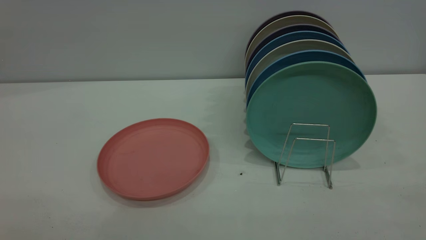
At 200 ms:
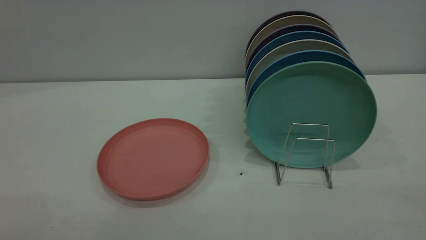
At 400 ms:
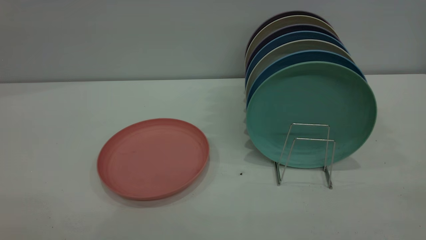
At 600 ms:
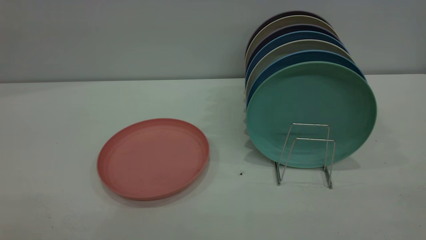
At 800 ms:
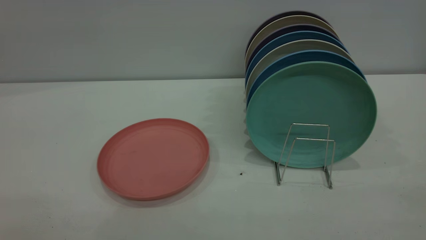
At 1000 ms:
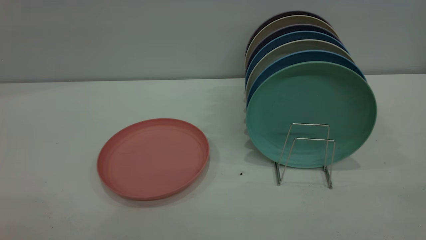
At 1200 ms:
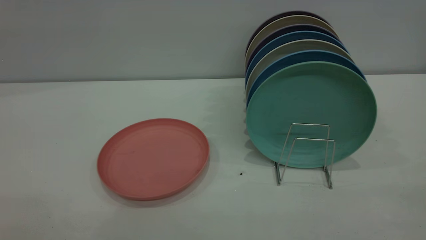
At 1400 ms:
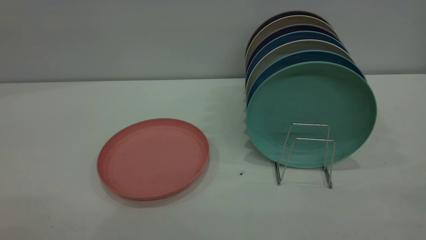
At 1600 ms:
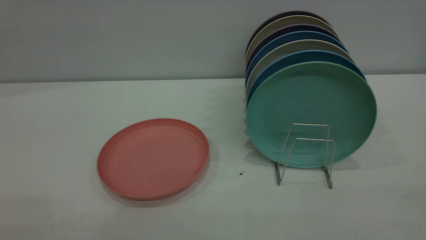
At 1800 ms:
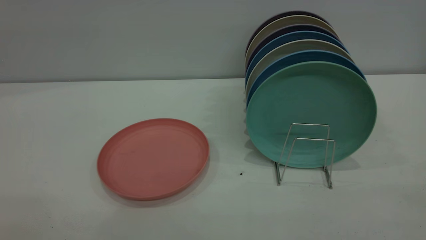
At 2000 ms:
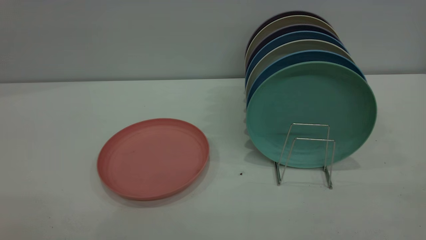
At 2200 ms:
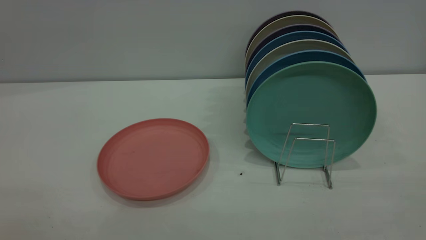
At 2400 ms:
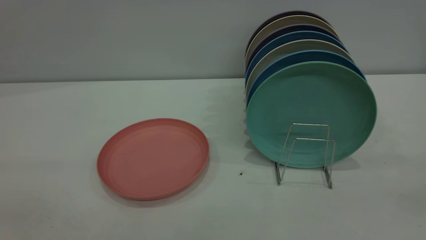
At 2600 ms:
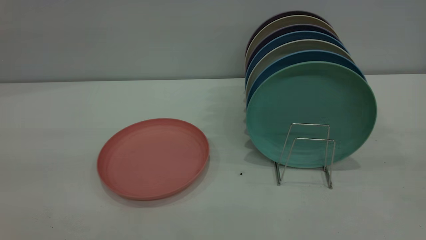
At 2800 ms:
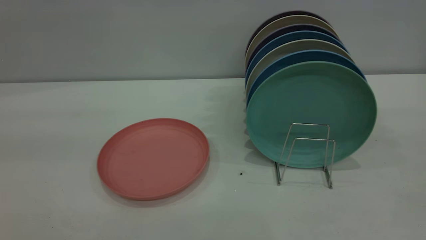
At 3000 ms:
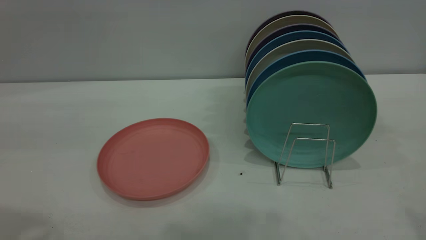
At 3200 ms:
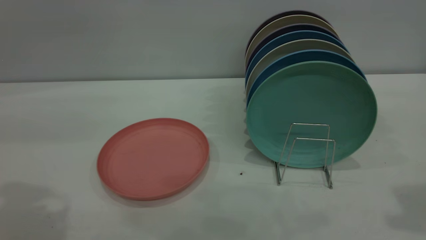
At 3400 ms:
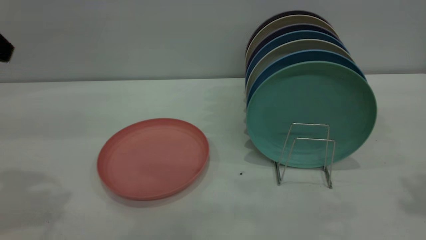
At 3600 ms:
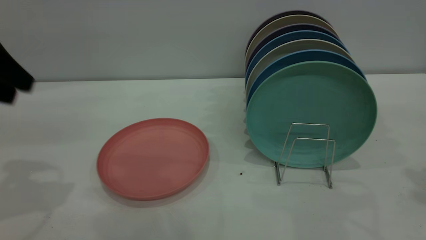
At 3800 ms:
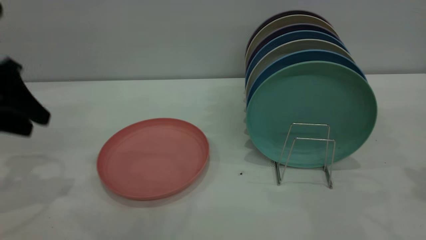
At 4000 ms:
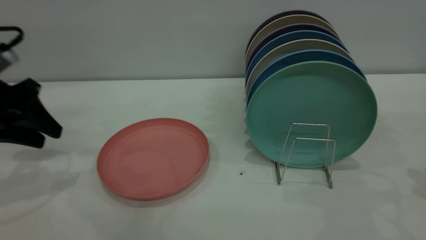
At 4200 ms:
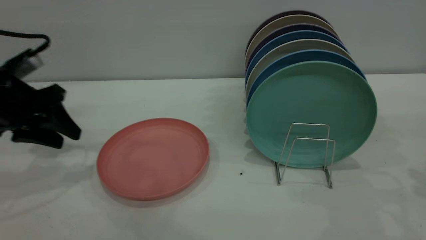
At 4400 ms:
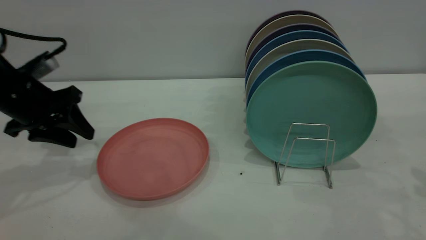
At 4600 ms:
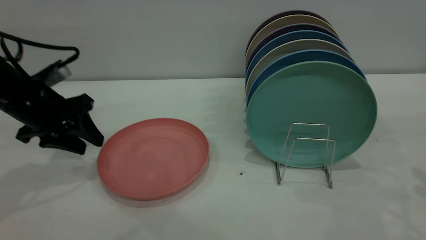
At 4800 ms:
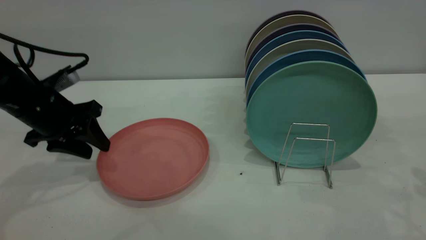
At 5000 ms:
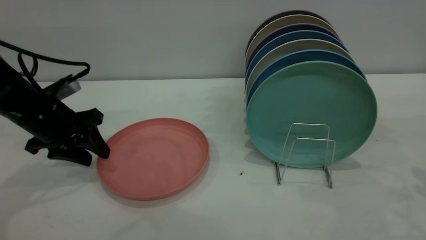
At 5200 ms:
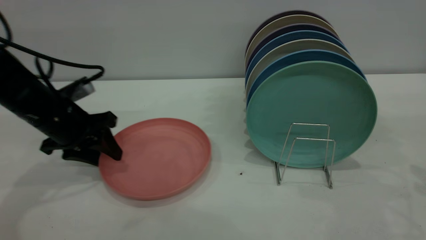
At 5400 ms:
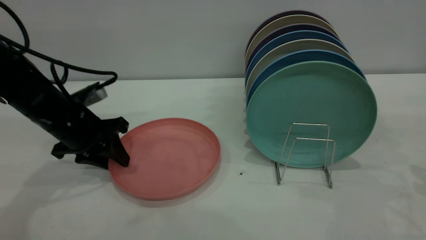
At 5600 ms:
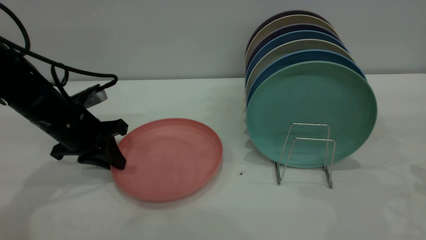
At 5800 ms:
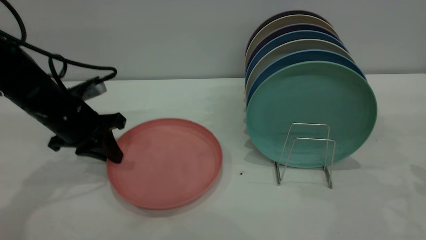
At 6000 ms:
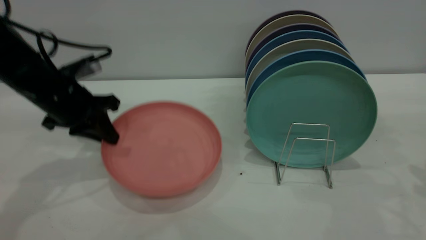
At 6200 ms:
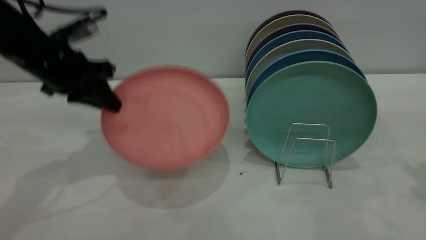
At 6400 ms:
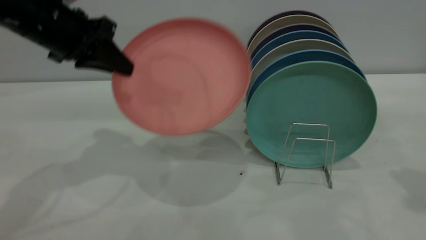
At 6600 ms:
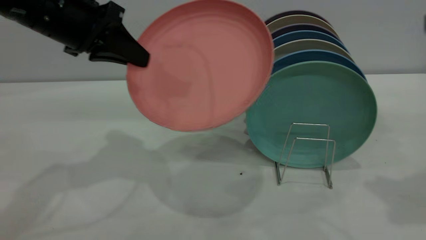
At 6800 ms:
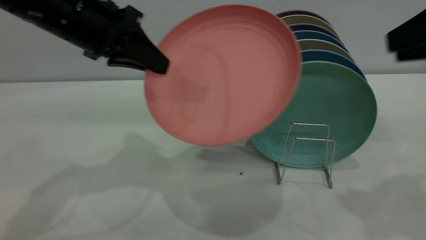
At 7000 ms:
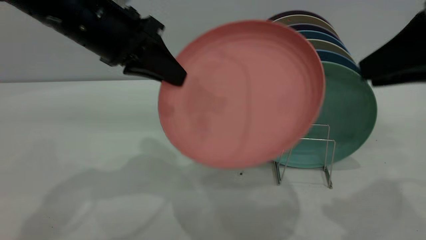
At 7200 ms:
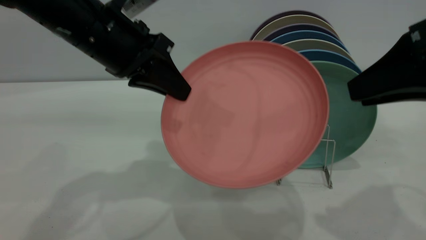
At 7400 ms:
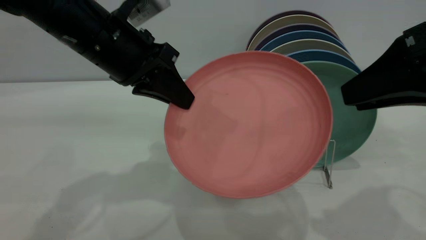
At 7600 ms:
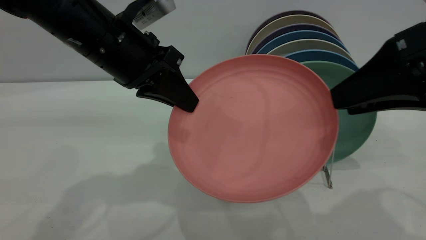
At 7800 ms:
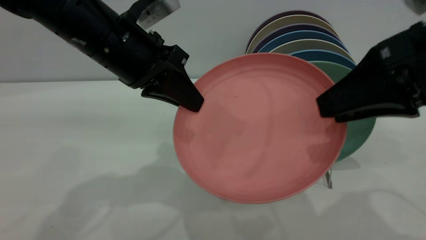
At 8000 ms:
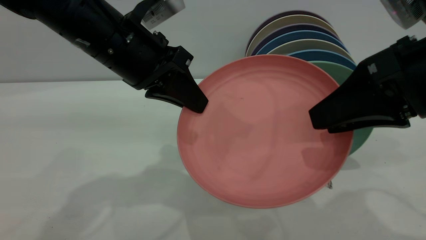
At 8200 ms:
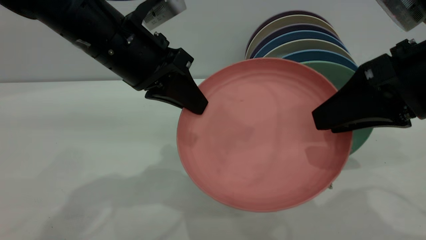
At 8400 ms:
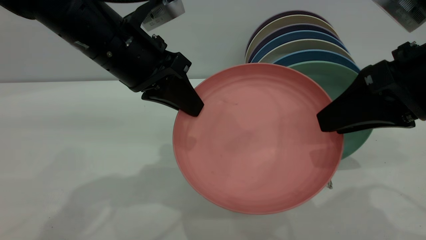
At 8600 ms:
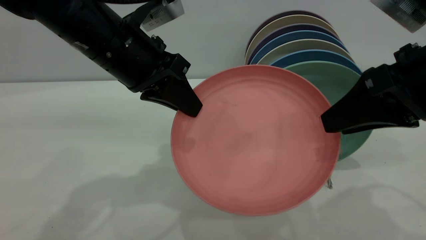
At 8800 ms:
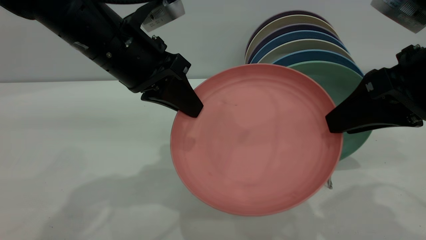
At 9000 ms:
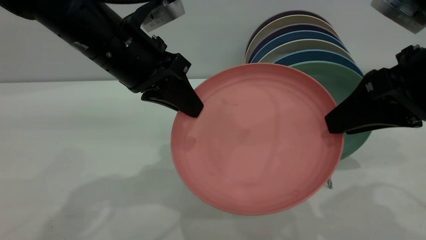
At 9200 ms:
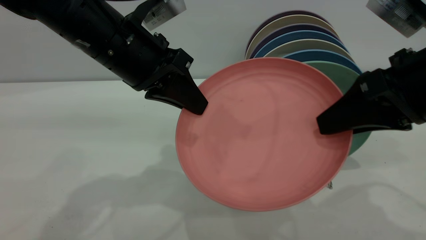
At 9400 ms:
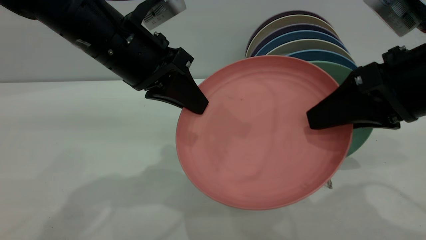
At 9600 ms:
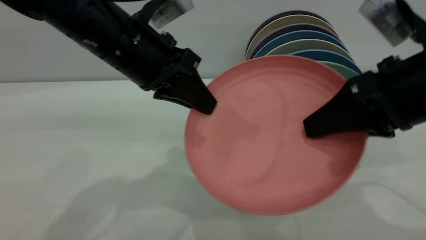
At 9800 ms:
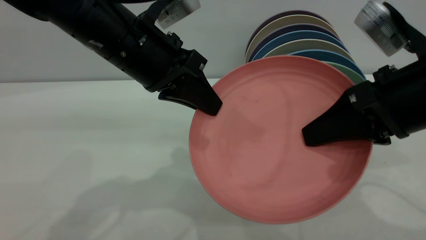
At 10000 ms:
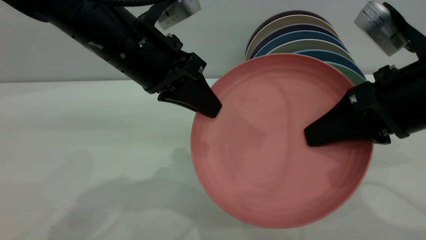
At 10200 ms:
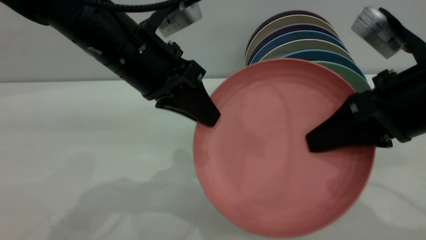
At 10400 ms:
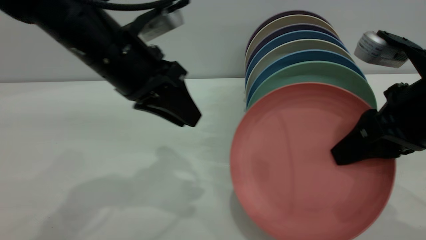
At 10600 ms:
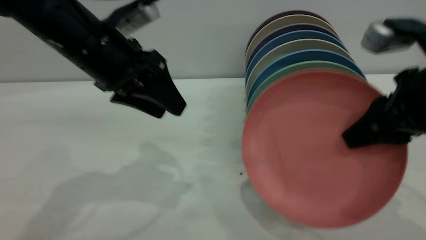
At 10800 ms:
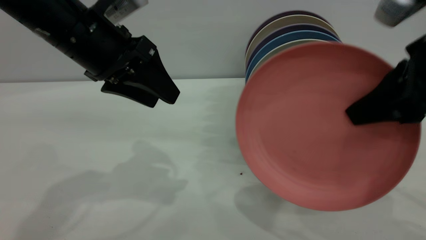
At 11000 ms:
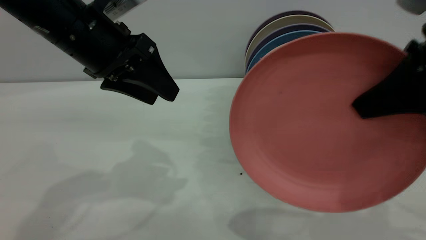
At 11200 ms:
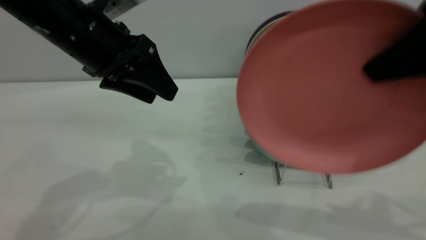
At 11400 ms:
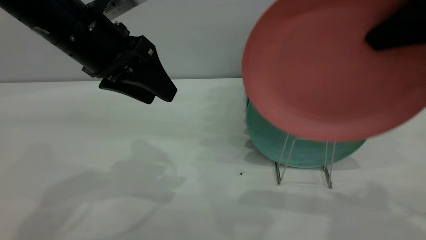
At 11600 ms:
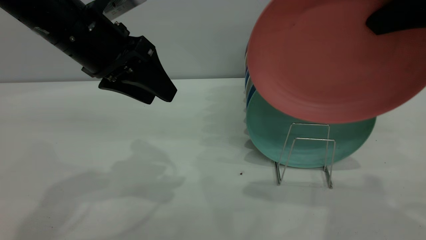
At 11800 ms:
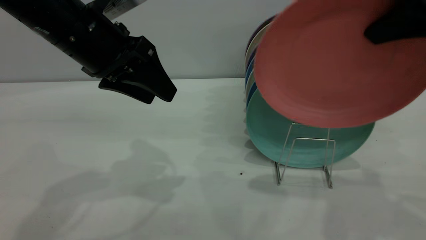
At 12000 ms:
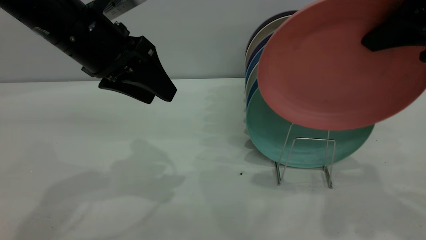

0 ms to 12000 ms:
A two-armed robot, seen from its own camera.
Task of the whole recording: put the plate on the plate rack.
Step, 0 ms to 6200 ms: Pick up the plate with the left gripper.
Step, 6400 ms to 10200 ms: Pass the plate from the left gripper to the right gripper.
0 ms to 1600 ms: Both grippers stay put.
3000 ms to 4400 ms: The left gripper goes about 30 cm downward and forward.
4400 ms to 6000 ms: The left gripper shifts approximately 5 cm to the right, and closes.
6000 ms to 7600 ms: The right gripper heads to the left, covering roughly 15 cm. The left gripper goes some 15 cm to the right and upward.
7600 ms to 9000 ms: The grippers stay close to where they were, moving slightly.
9000 ms to 10400 ms: The right gripper closes up. The left gripper opens up.
10400 ms to 12000 ms: The right gripper goes about 10 cm upward. The left gripper opens.

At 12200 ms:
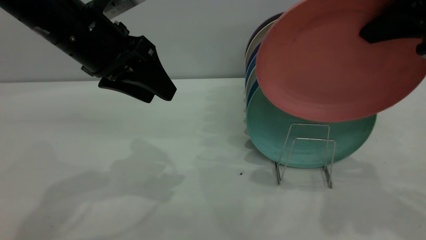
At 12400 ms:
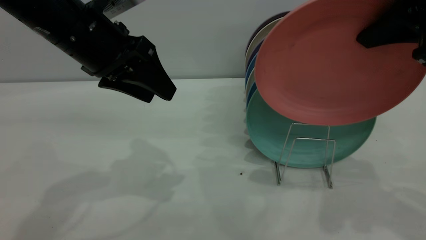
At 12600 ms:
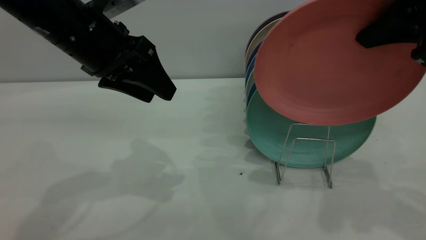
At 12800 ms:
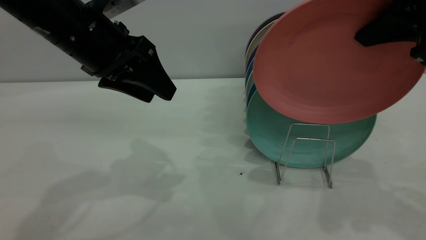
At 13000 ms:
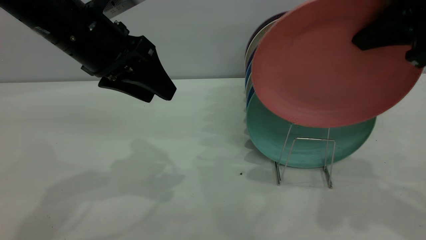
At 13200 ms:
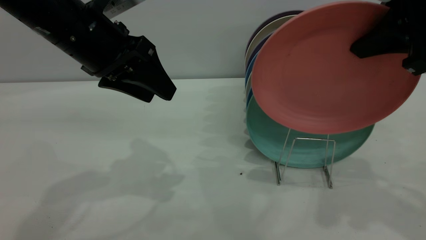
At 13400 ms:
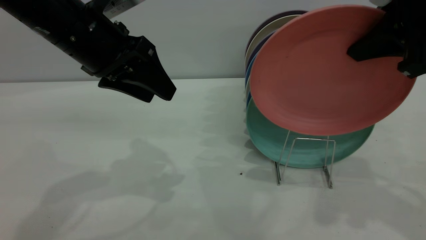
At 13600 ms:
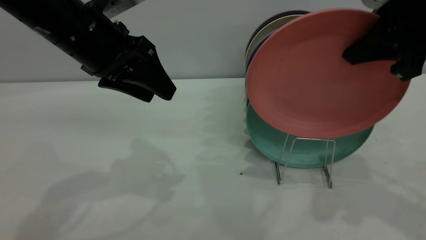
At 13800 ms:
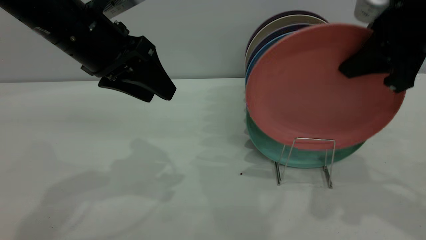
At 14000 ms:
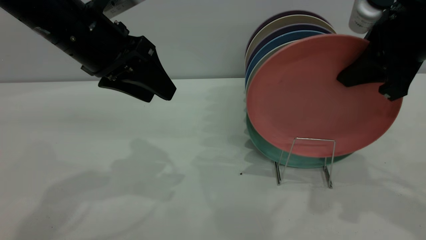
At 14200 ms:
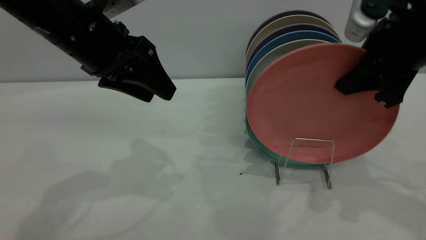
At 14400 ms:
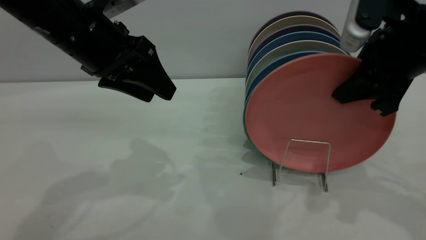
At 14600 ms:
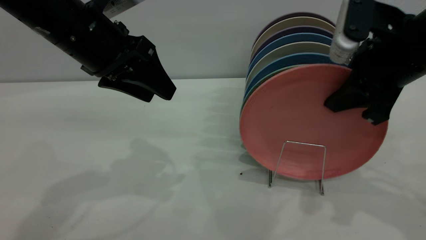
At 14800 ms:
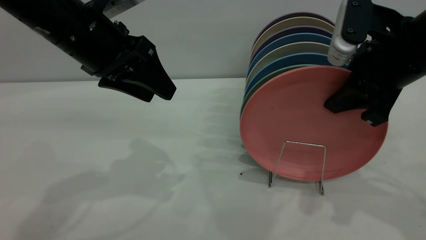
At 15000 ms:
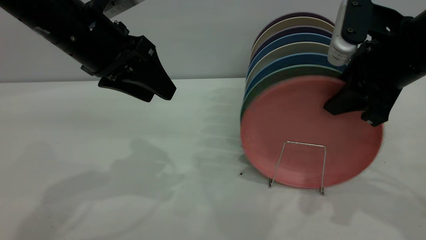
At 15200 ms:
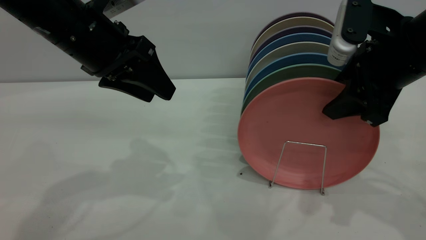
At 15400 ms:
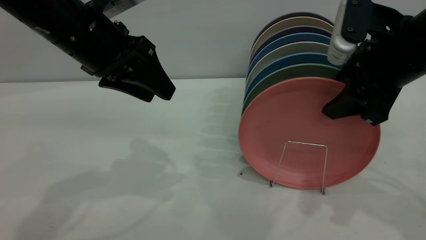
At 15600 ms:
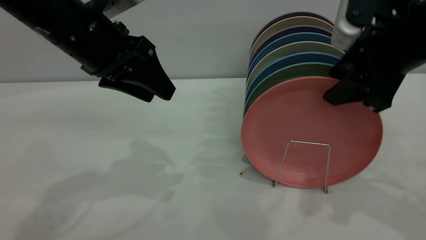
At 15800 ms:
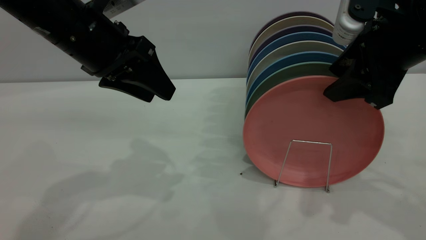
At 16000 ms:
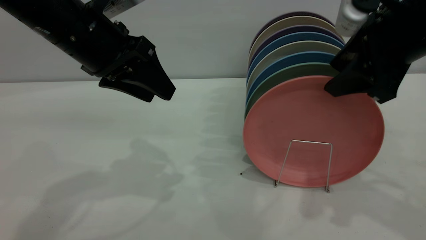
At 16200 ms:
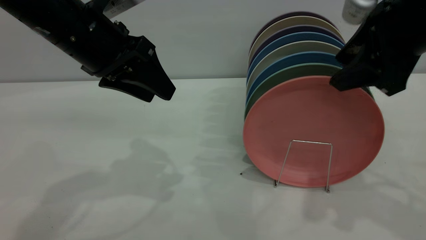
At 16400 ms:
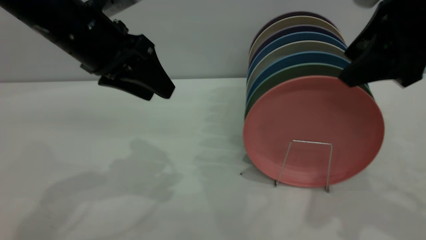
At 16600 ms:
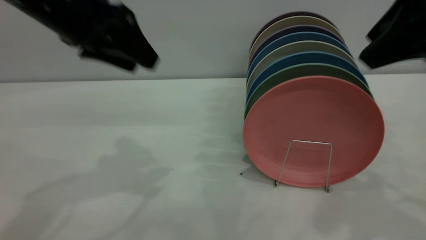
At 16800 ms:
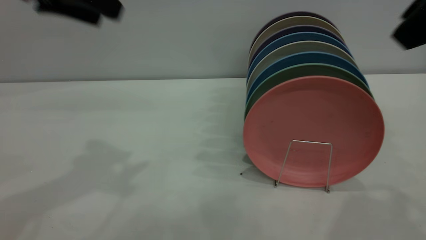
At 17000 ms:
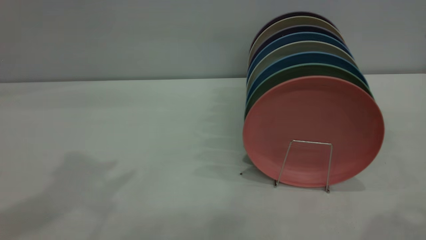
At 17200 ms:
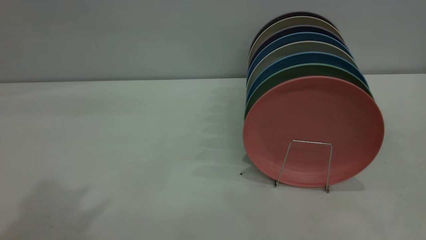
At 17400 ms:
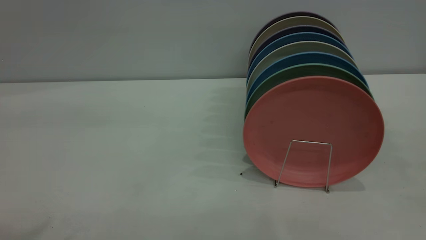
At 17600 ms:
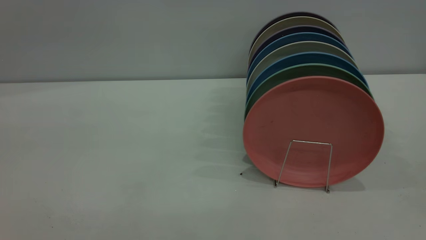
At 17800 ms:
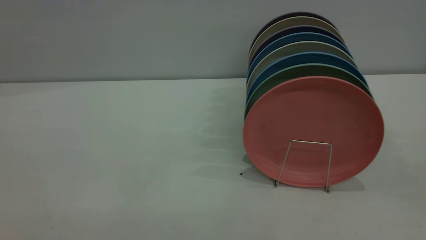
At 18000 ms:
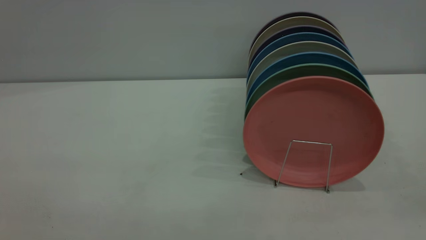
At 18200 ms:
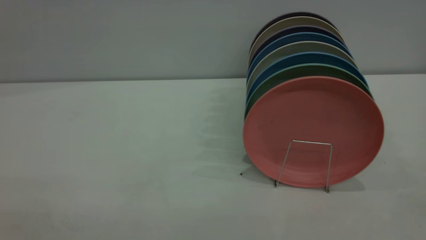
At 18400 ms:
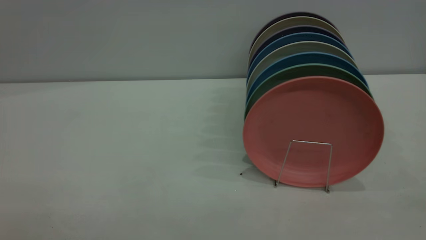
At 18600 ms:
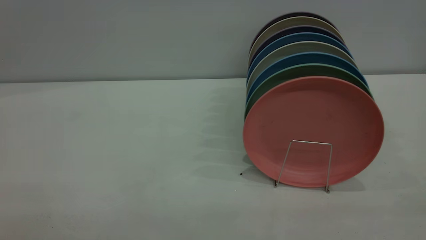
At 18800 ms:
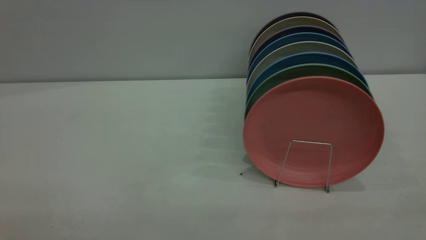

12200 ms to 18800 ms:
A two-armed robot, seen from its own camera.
Task of the whole recording: put the plate on the plate rack.
Step, 12200 ms to 16400 ms: Place the plate on the shelf.
12200 ms to 13800 ms: The right gripper shifts by approximately 5 cm.
13800 ms to 15400 ms: The right gripper opens.
15400 ms to 17200 ms: Both grippers travel together upward and backward, approximately 25 cm. The right gripper closes.
